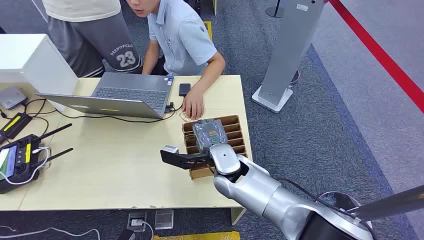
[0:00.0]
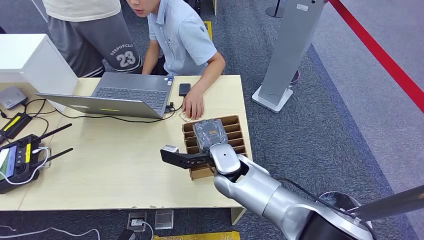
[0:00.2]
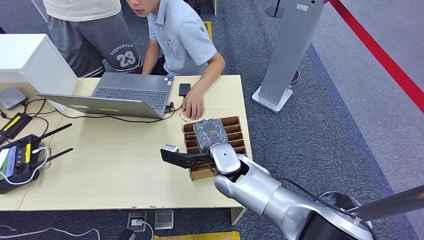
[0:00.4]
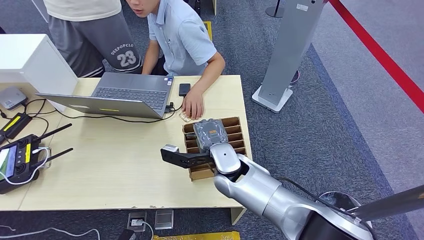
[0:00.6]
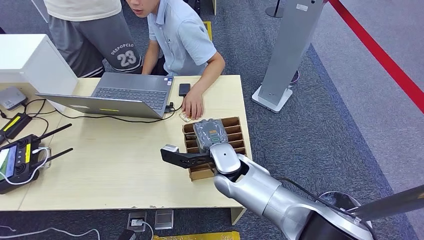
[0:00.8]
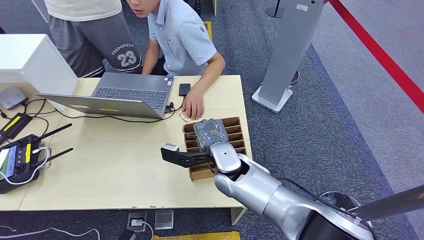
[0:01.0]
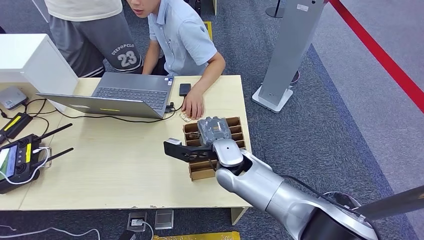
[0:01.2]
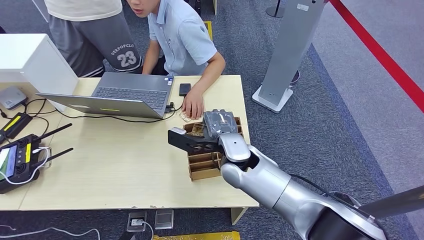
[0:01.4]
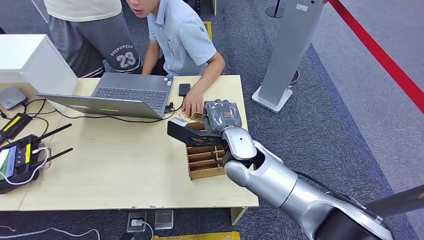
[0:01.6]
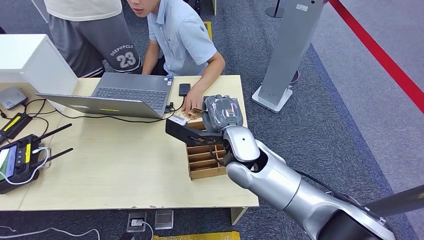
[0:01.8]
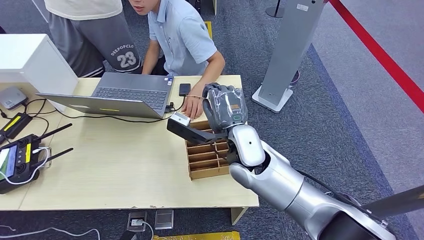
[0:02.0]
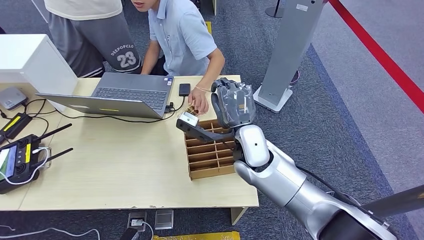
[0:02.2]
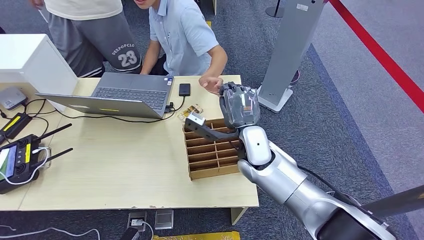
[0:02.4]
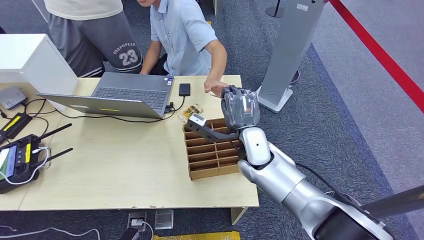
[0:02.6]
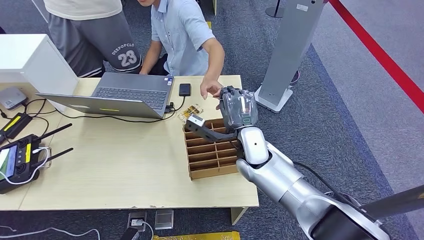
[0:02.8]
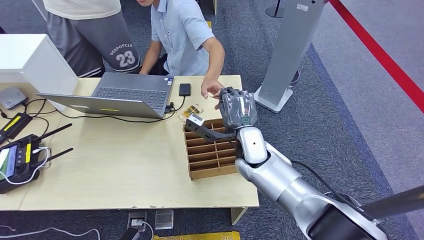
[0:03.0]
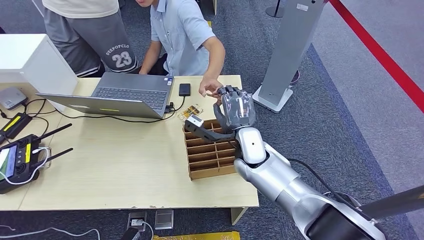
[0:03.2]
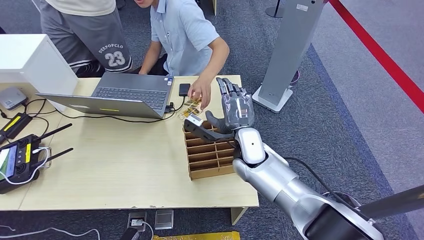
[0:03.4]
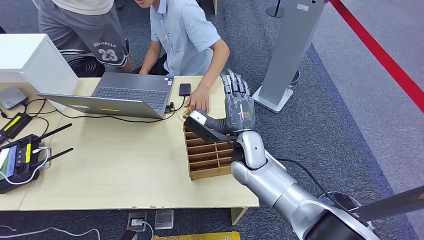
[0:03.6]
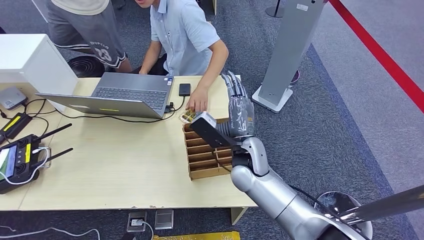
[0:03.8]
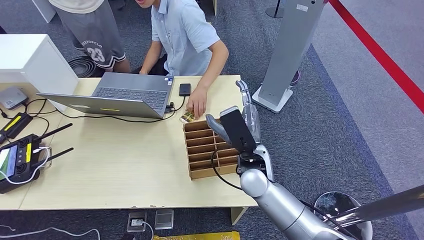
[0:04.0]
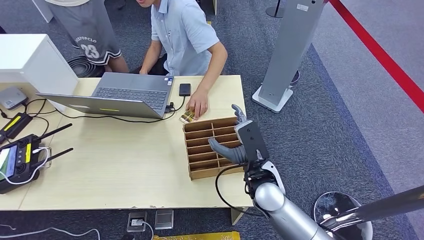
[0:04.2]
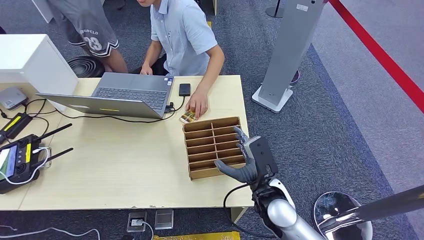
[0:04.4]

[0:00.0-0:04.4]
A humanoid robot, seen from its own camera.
Task of the whole recording: Pick up the card and hand it over to the target person.
Step, 0:00.0 to 0:01.8: Pick up the key card from the card box.
Step, 0:02.2 to 0:04.4: Hand the key card to the target.
0:01.4 to 0:03.0: The right hand is displaced downward by approximately 10 cm.
0:03.0 to 0:04.4: The right hand heads backward, to the right and downward, covering approximately 20 cm.

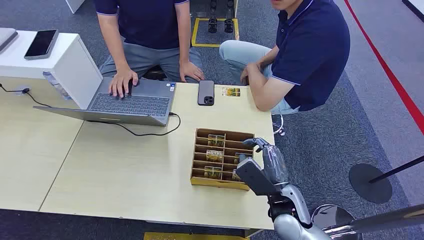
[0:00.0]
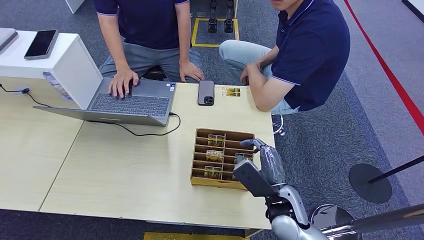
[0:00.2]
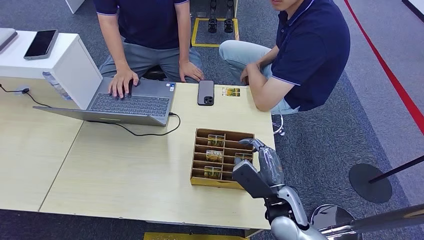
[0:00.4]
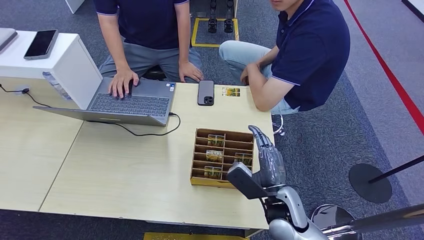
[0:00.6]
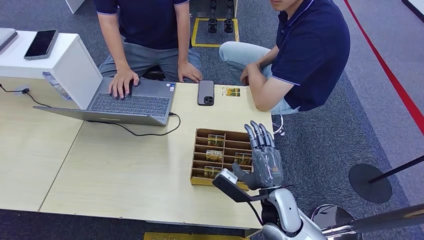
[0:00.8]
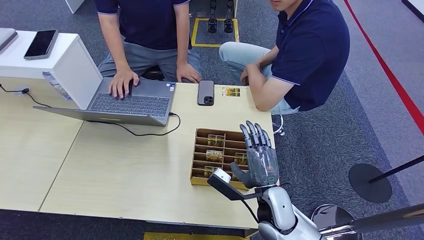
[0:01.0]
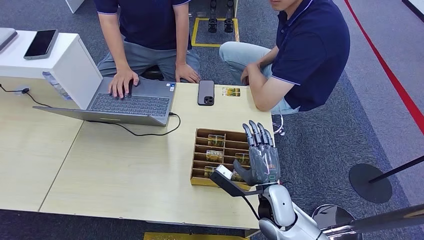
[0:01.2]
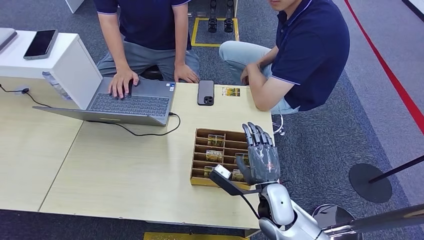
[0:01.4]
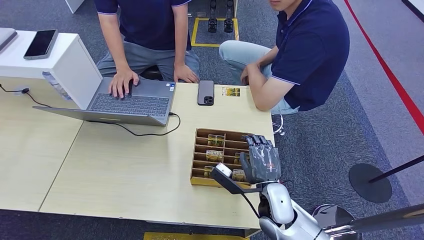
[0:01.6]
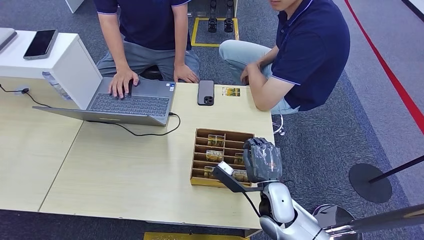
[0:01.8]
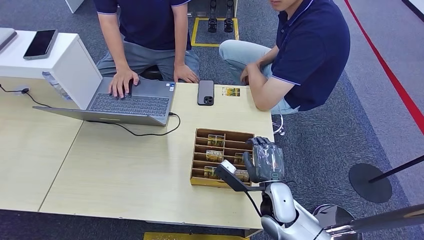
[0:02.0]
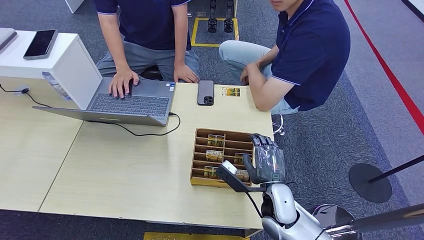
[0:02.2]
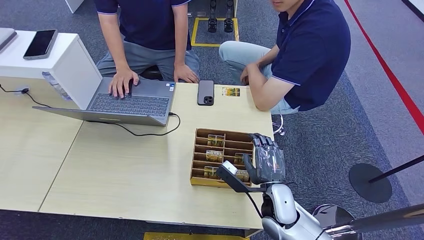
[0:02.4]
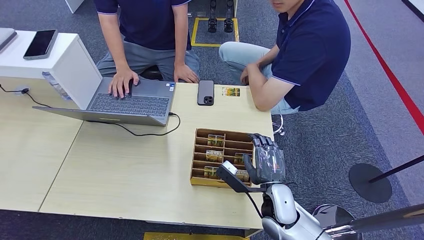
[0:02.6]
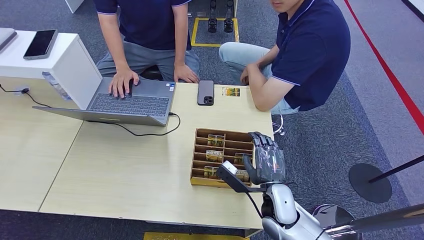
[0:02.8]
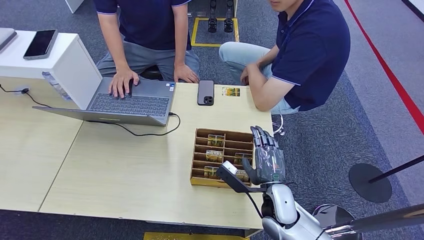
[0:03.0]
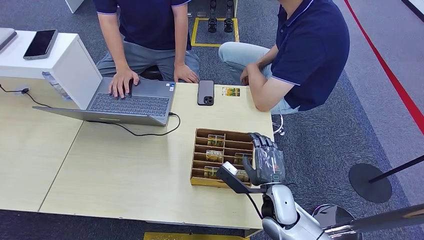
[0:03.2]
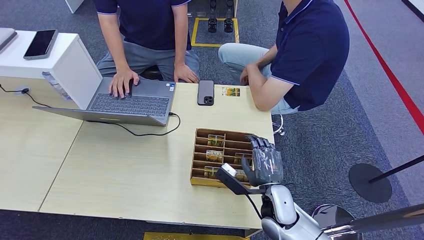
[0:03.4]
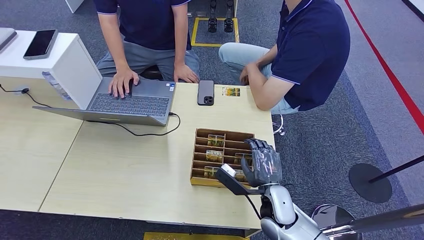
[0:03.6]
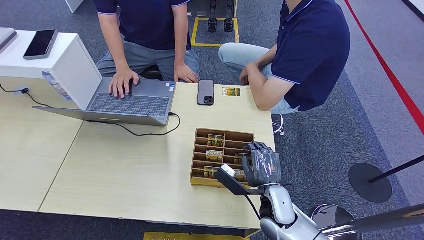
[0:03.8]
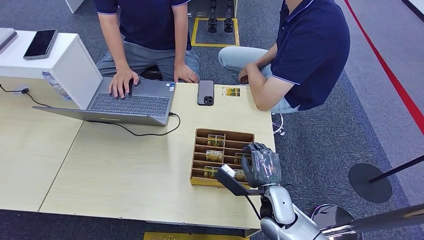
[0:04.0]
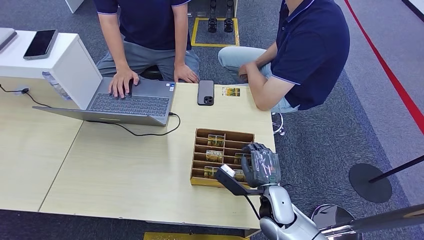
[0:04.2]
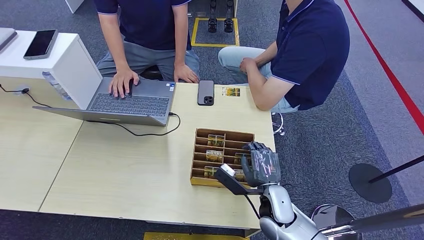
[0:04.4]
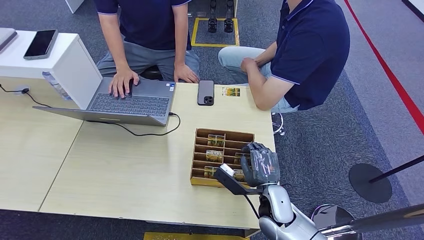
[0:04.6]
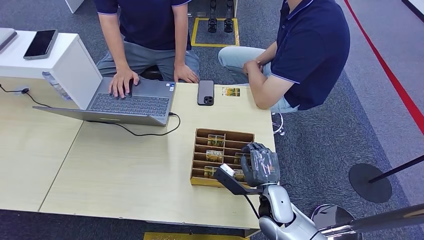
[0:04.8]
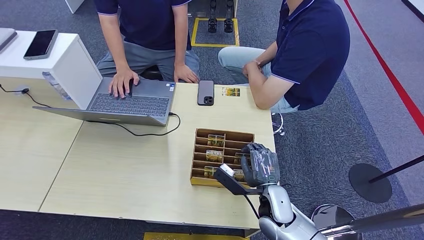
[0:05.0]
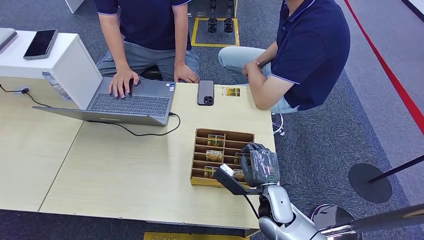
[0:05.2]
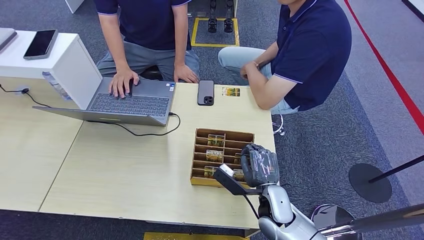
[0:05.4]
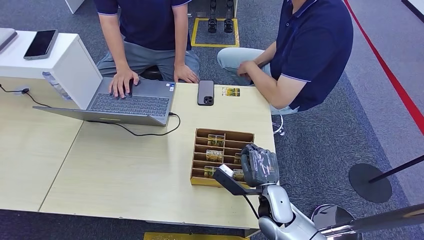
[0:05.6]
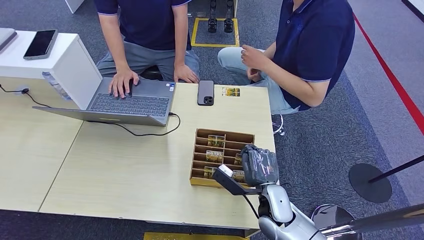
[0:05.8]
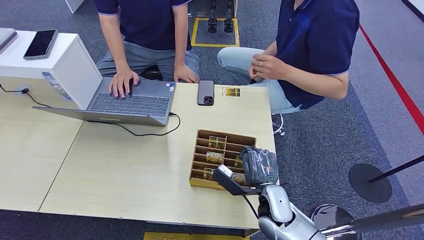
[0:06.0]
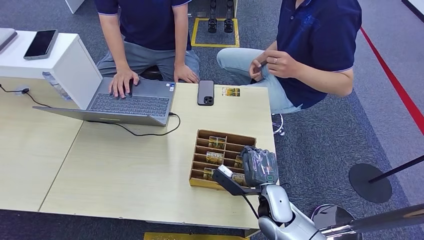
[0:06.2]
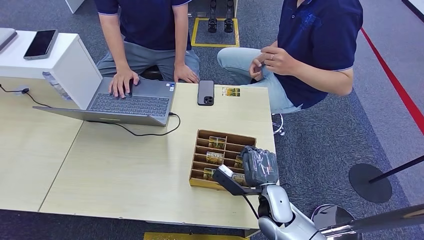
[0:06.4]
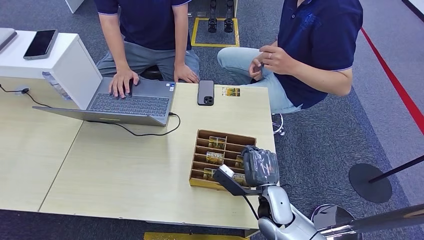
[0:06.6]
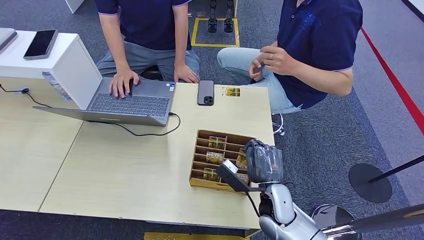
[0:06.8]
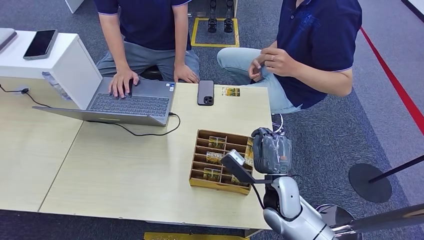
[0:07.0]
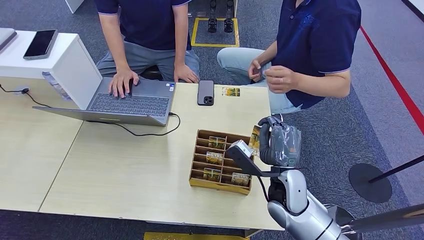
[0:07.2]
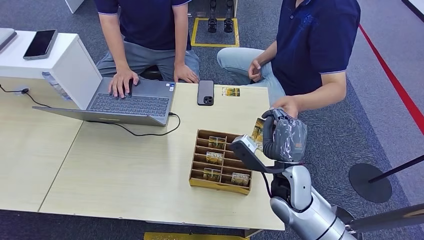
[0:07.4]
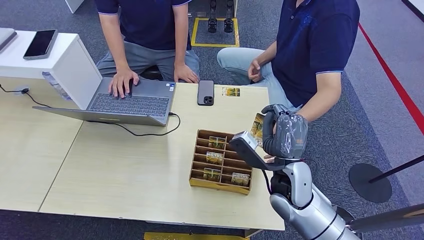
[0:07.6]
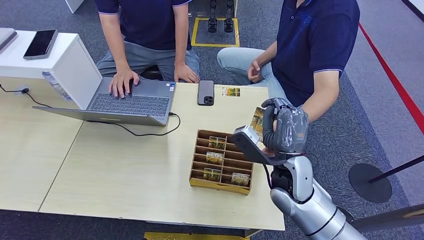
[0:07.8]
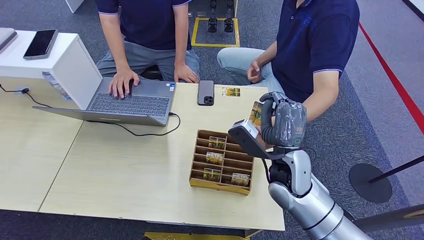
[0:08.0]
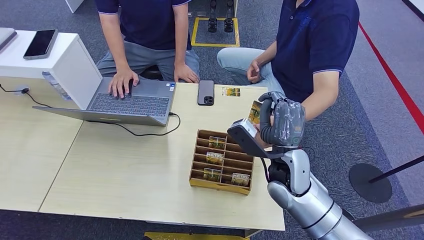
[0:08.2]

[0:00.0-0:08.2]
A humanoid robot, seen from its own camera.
Task of the whole recording: Pick up the card and hand it over to the target person.
Step, 0:00.0 to 0:07.2: Pick up the key card from the card box.
Step, 0:07.4 to 0:08.2: Hand the key card to the target.
0:01.6 to 0:03.2: There are only small adjustments of the hands.
0:03.2 to 0:05.0: Both hands stay about where they are.
0:05.0 to 0:06.6: The hands make only small movements.
0:06.6 to 0:08.2: The right hand is displaced upward by roughly 10 cm.
